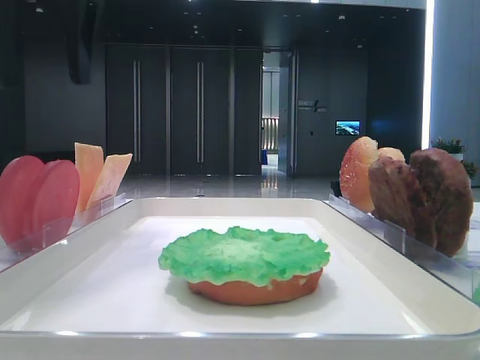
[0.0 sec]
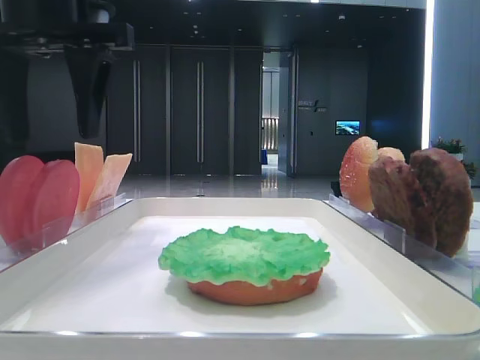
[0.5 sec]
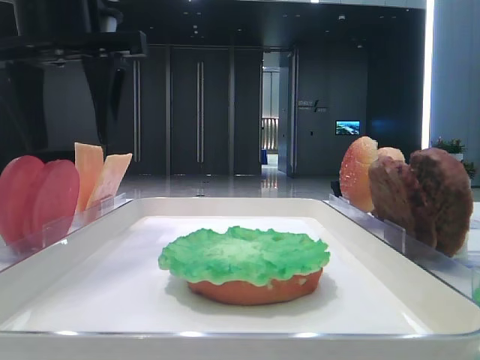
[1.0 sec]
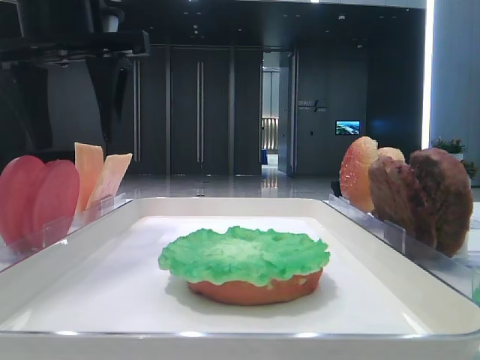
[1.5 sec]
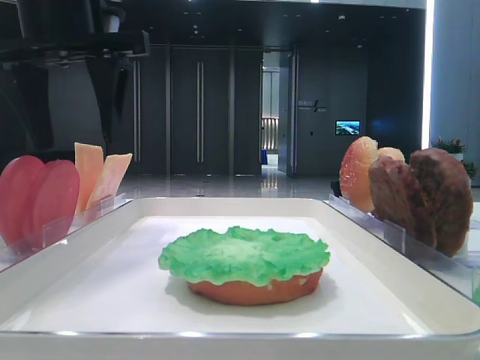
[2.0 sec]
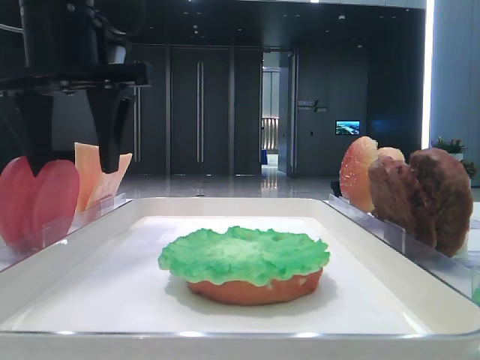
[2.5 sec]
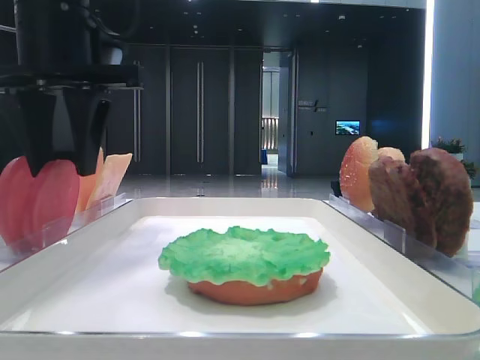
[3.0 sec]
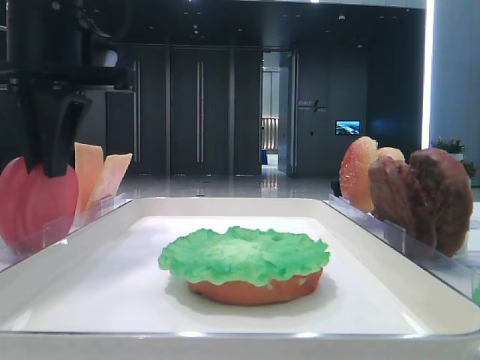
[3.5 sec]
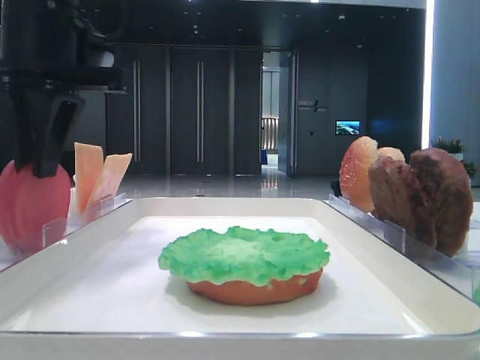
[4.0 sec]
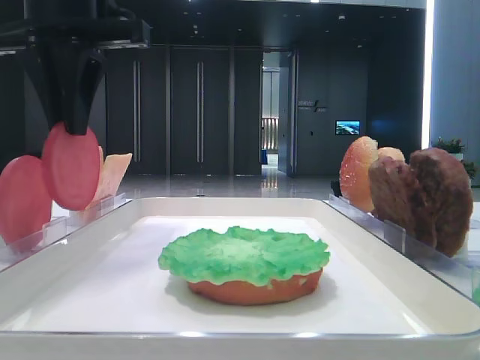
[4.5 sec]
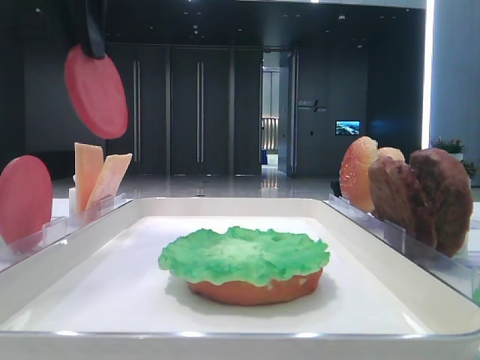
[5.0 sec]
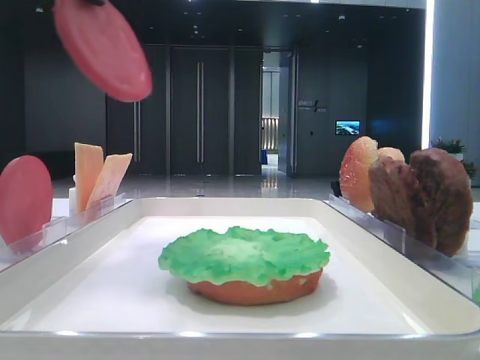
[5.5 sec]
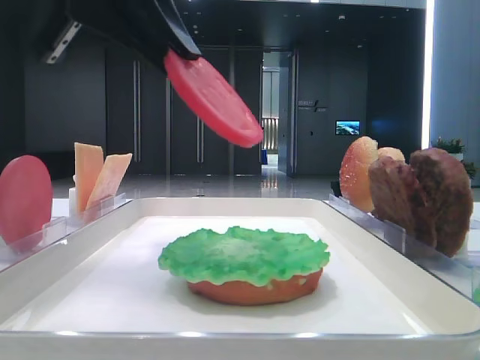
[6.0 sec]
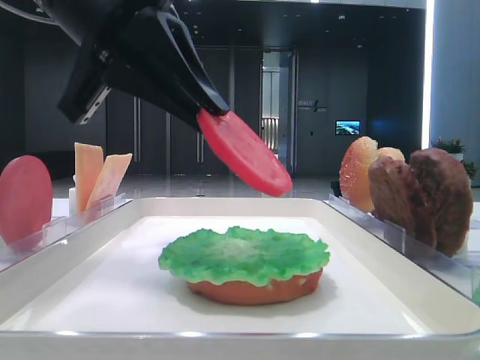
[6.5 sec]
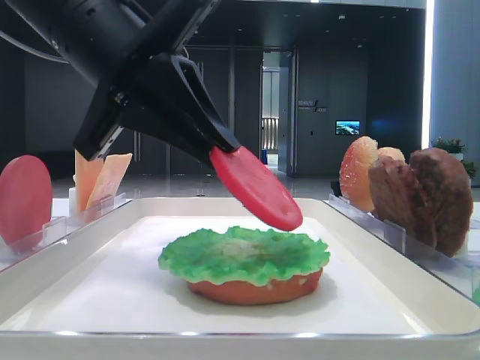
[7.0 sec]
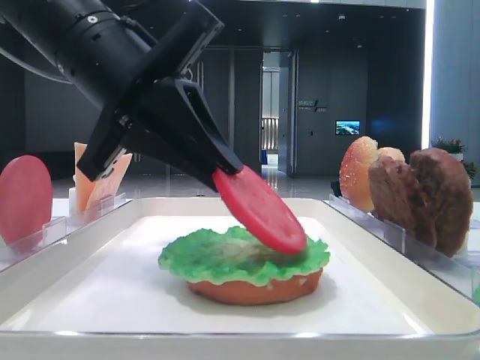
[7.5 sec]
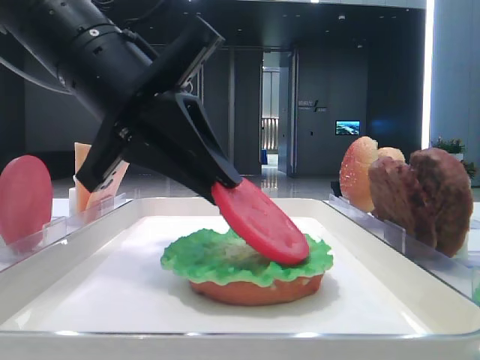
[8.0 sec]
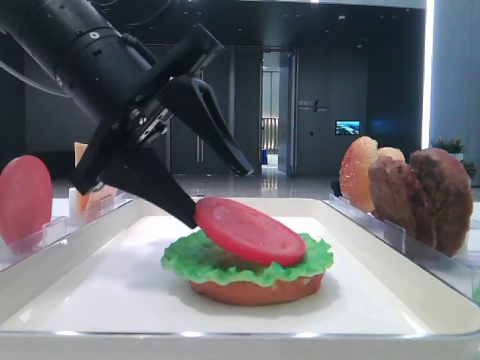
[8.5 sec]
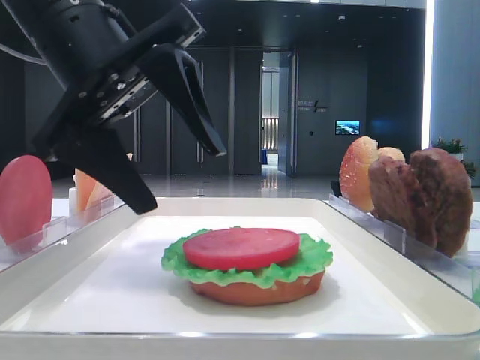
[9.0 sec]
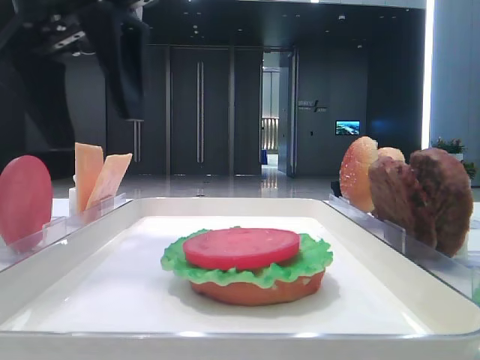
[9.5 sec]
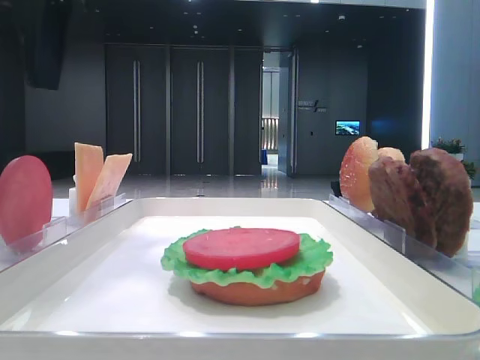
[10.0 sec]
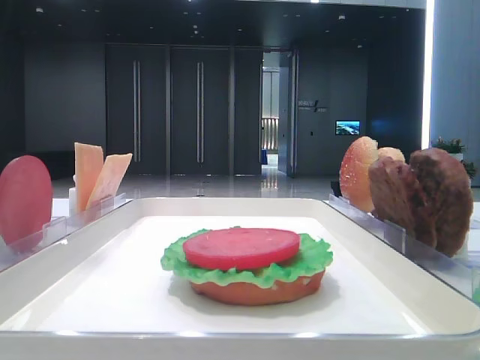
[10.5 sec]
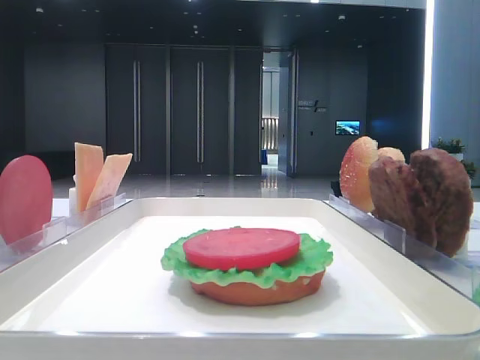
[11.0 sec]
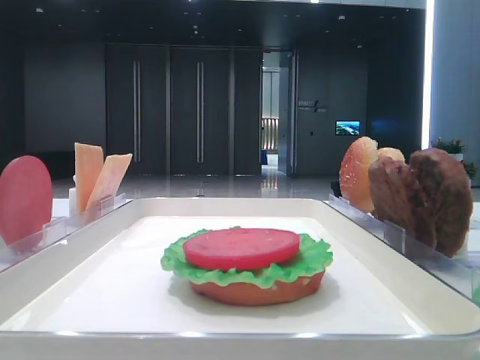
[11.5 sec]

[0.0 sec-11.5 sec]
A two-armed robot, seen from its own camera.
Step, 0.0 sec to 3.5 sec: Pick up the tomato slice with the left hand.
Step, 4.0 sec to 8.5 sec: Place the tomato slice on the lettuce leaf with the left hand.
0.0 sec to 2.0 sec: The left gripper moves roughly 5 cm.
2.0 sec to 4.0 sec: The left gripper closes up.
4.0 sec to 6.0 sec: The left gripper goes about 5 cm backward.
6.0 sec to 7.5 sec: The left gripper heads downward, covering some 10 cm.
7.5 sec to 9.5 sec: The left gripper travels upward by some 5 cm, and opens up.
9.5 sec to 11.5 sec: The left gripper heads to the left, upward and backward, covering about 25 cm.

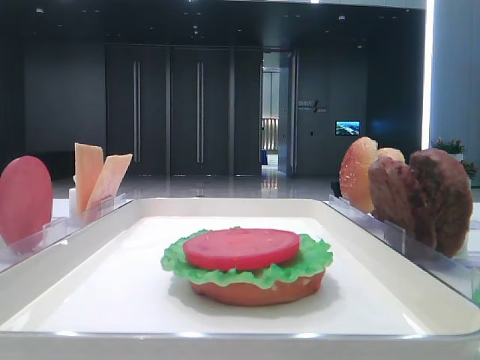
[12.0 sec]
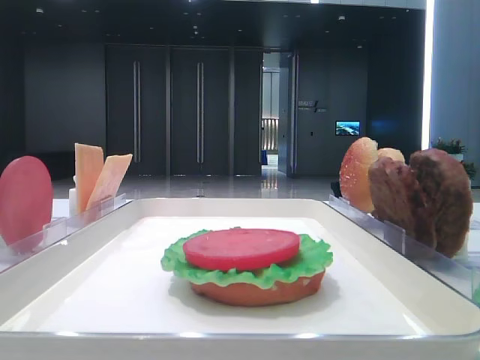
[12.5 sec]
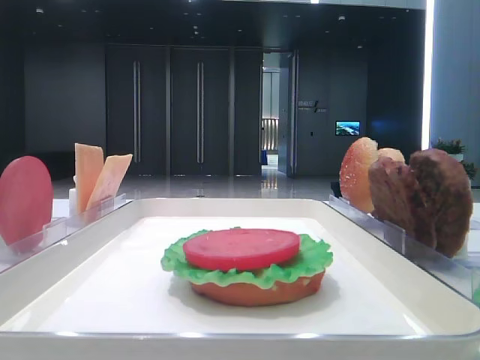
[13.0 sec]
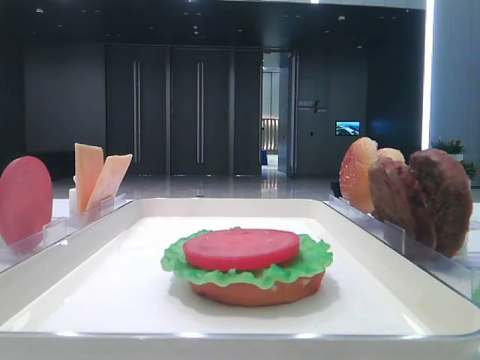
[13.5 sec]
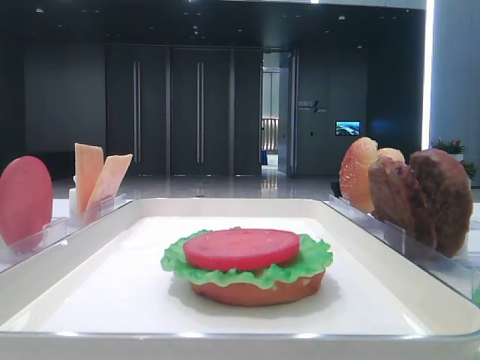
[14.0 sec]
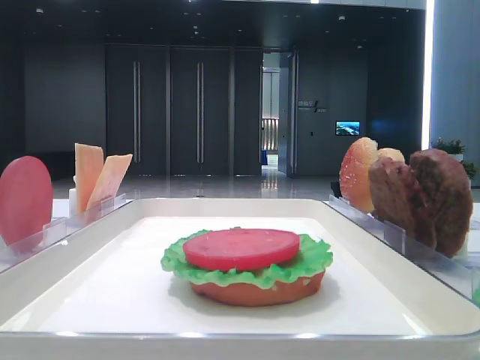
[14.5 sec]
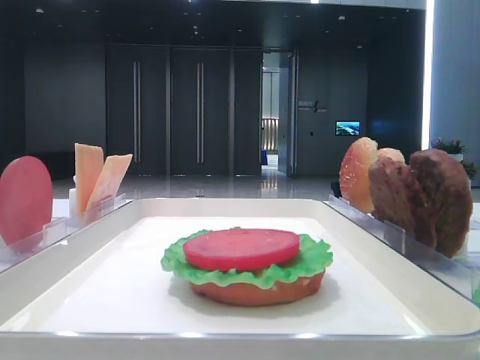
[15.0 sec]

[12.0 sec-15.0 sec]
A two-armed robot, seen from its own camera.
13.5 sec to 15.0 sec: Both grippers stay about where they are.

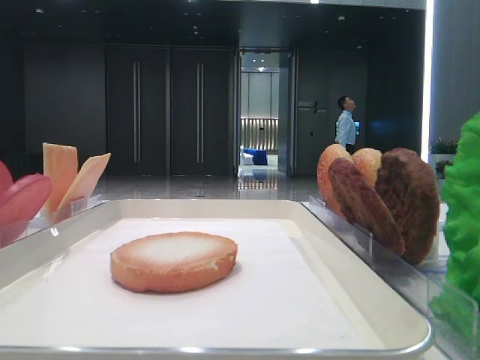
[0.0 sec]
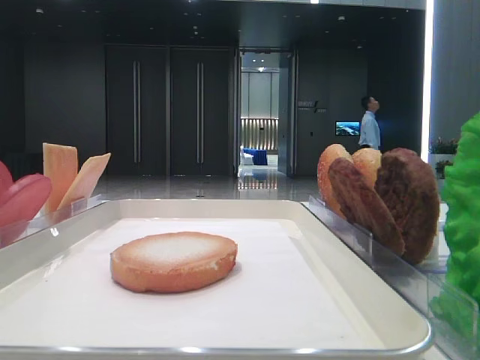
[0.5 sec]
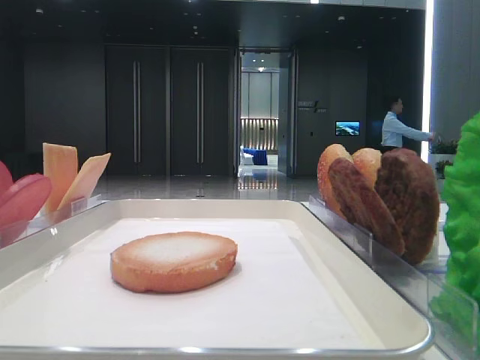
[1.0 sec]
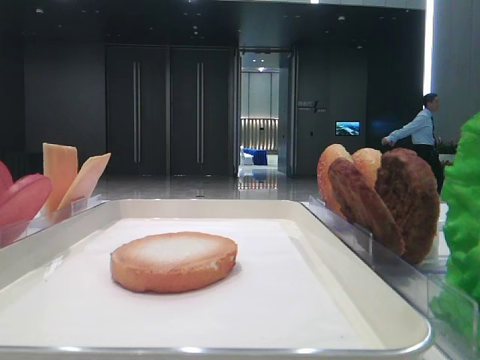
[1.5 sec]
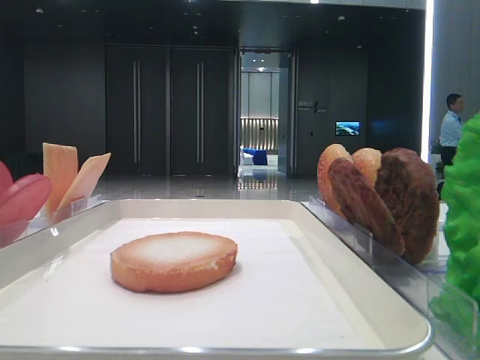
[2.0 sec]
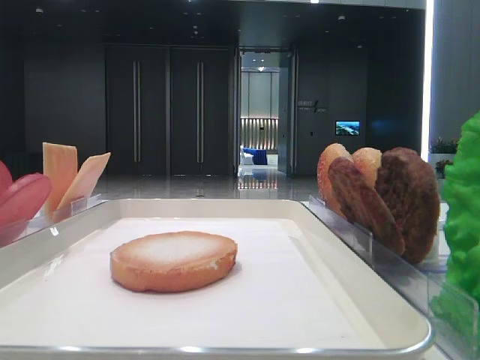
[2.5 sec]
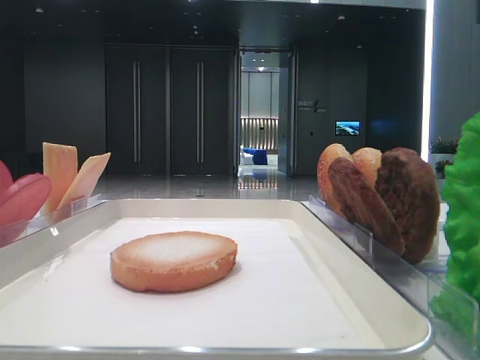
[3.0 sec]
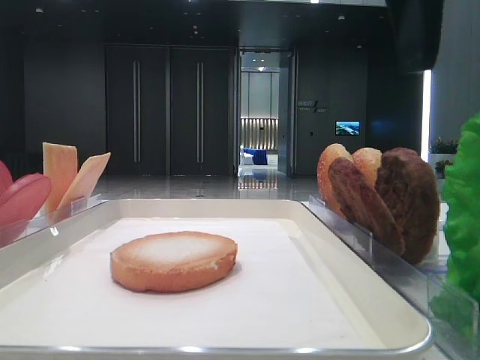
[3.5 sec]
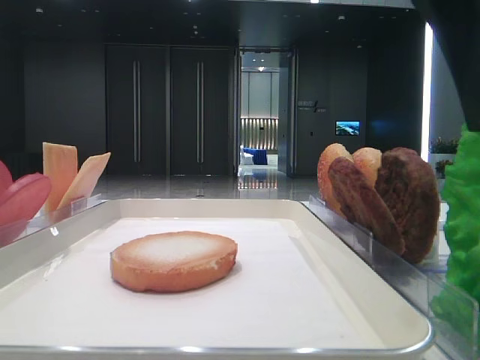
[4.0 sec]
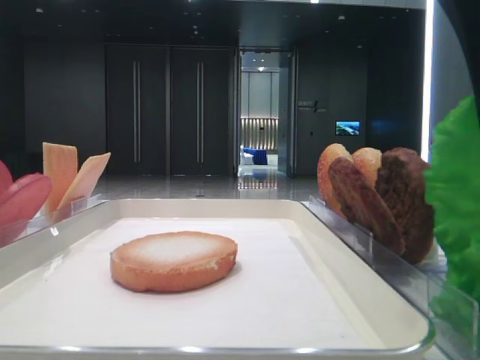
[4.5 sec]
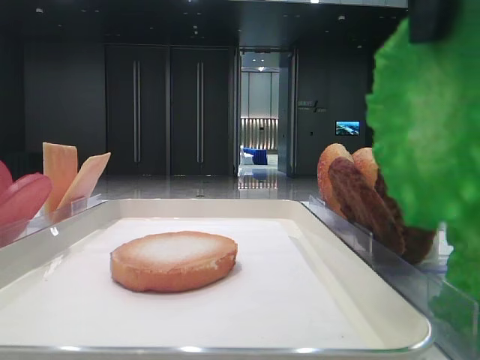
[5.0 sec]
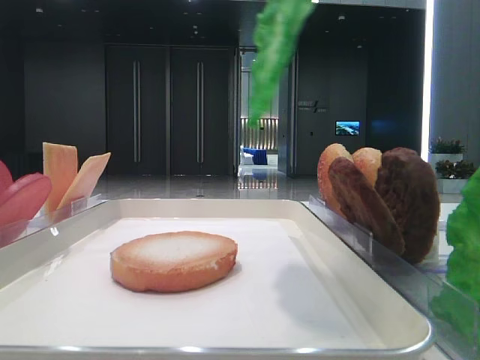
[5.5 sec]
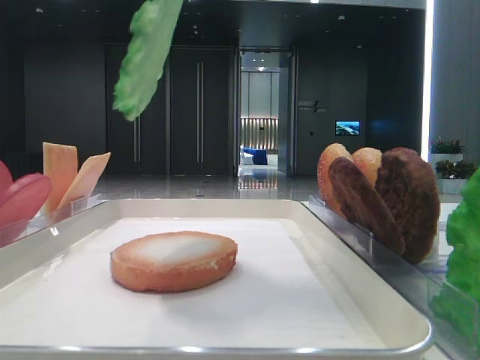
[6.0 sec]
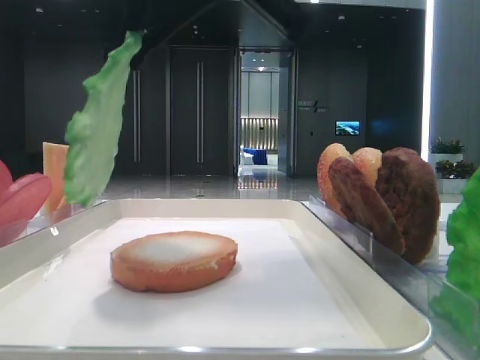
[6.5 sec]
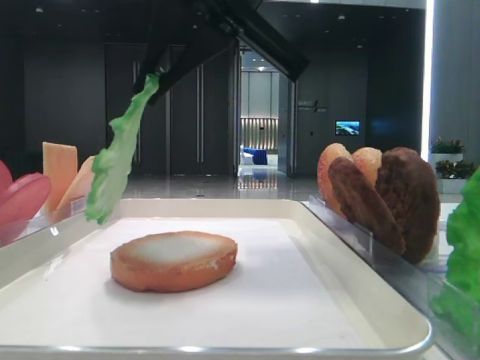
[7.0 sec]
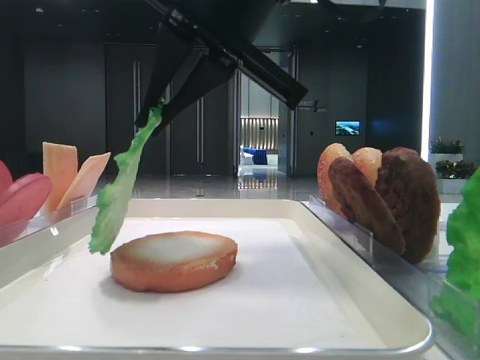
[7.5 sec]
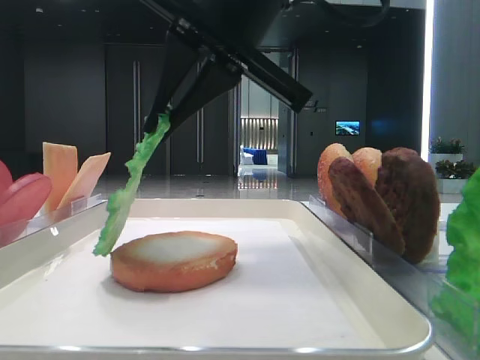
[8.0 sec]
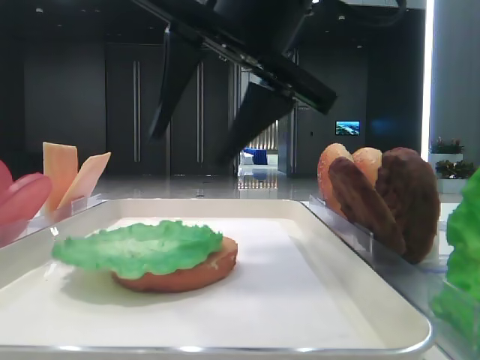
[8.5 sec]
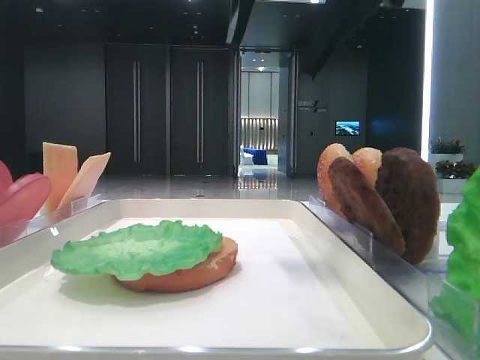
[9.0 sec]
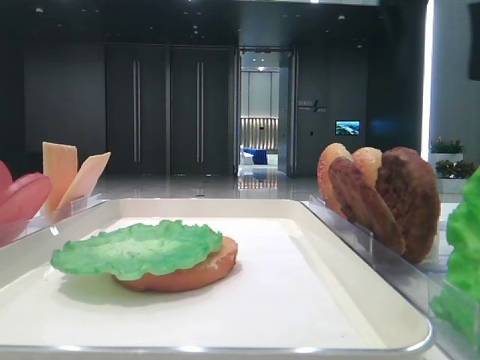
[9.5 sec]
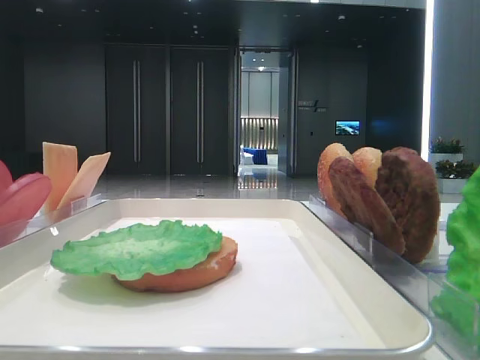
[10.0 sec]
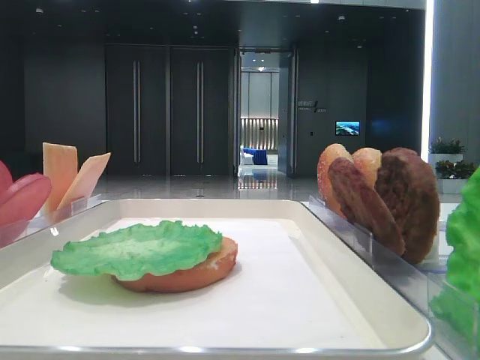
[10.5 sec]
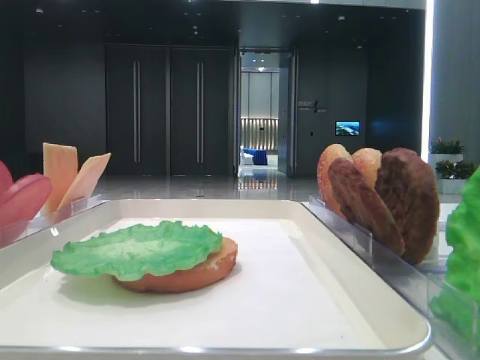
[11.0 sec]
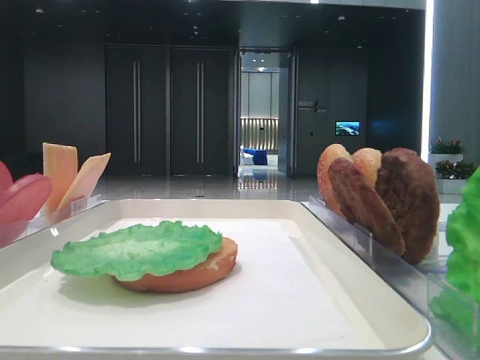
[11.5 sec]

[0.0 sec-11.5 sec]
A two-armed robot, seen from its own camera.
Step, 0.0 sec to 4.0 sec: Grab the lettuce leaf with the right hand.
Step, 4.5 sec to 8.0 sec: Place the lettuce leaf on the bottom bread with the right hand.
2.0 sec to 4.0 sec: The right gripper heads to the left, covering roughly 20 cm.
4.0 sec to 6.0 sec: The right gripper travels to the left and upward by approximately 10 cm, and closes its fingers.
6.0 sec to 7.5 sec: The right gripper goes approximately 10 cm downward and forward.
7.5 sec to 9.5 sec: The right gripper goes roughly 20 cm to the right and upward, and opens.
9.5 sec to 11.5 sec: The right gripper goes approximately 35 cm backward.
